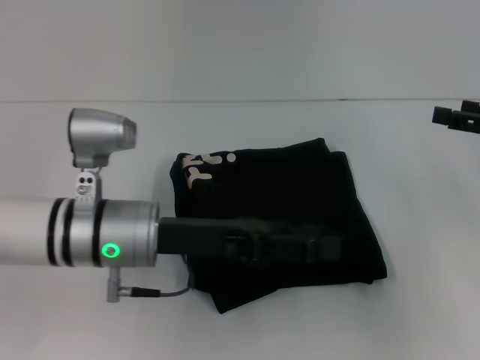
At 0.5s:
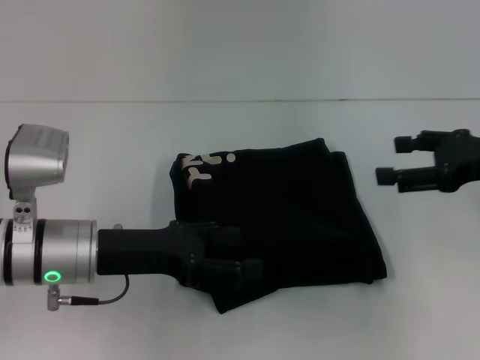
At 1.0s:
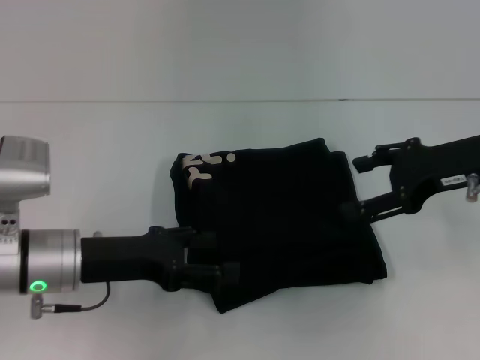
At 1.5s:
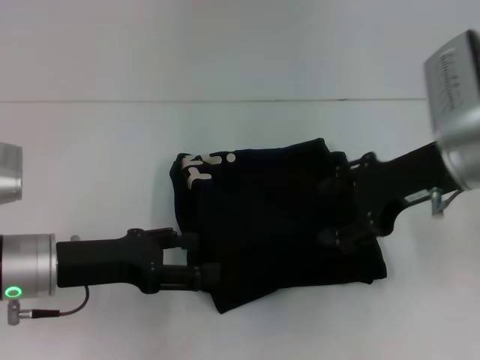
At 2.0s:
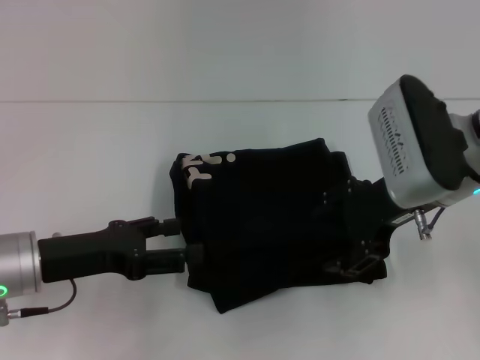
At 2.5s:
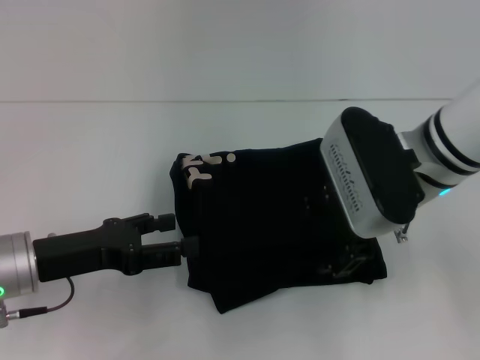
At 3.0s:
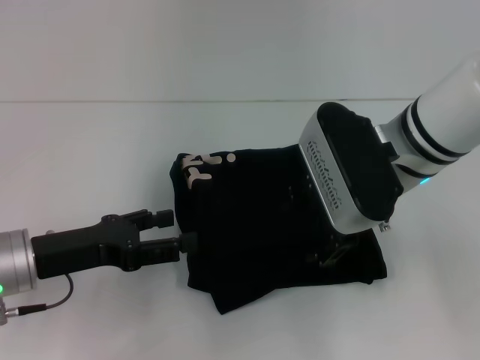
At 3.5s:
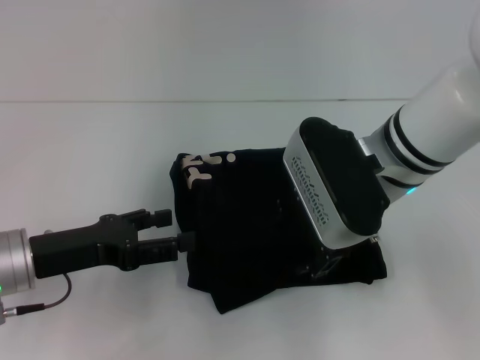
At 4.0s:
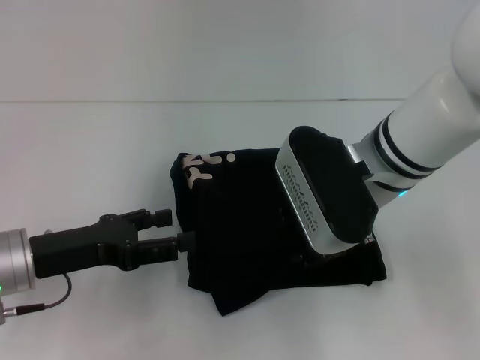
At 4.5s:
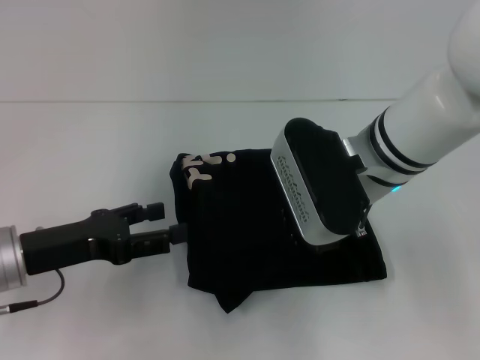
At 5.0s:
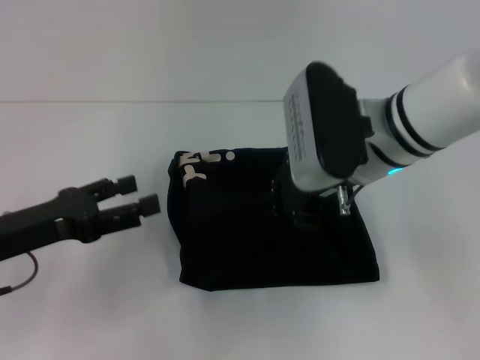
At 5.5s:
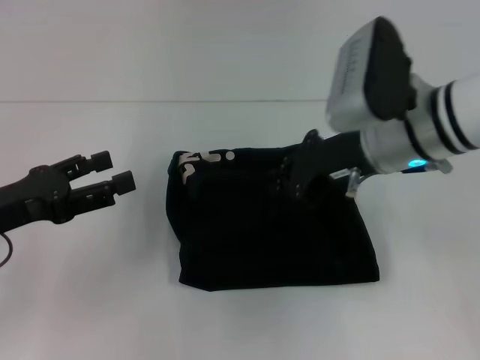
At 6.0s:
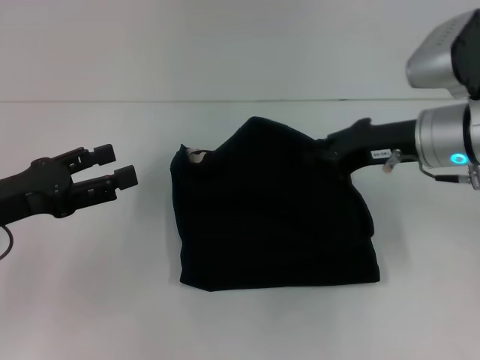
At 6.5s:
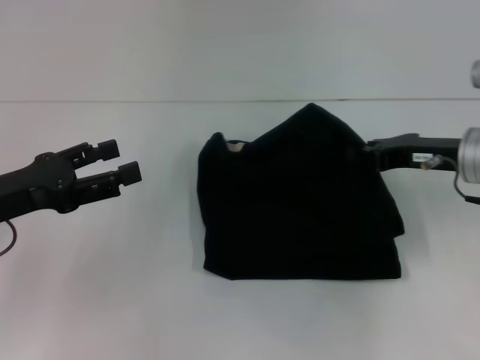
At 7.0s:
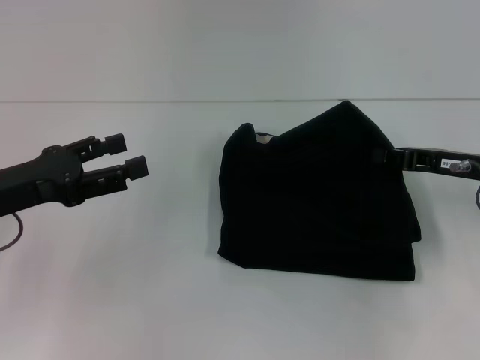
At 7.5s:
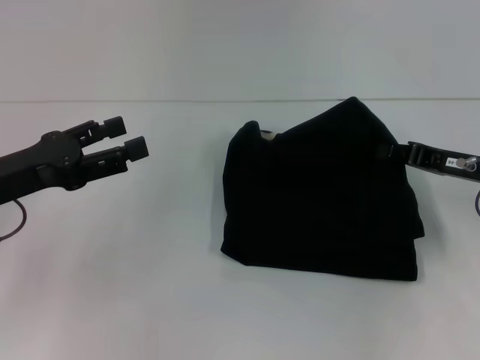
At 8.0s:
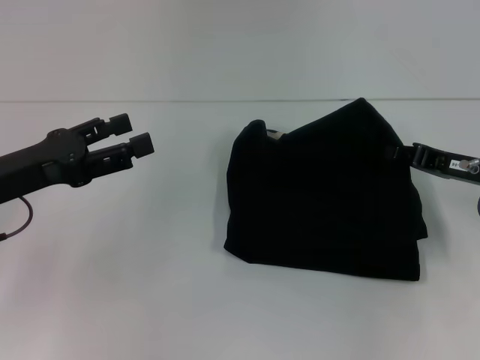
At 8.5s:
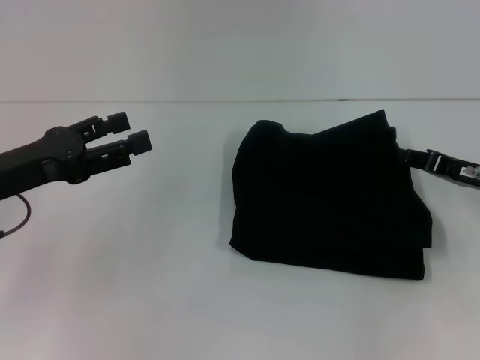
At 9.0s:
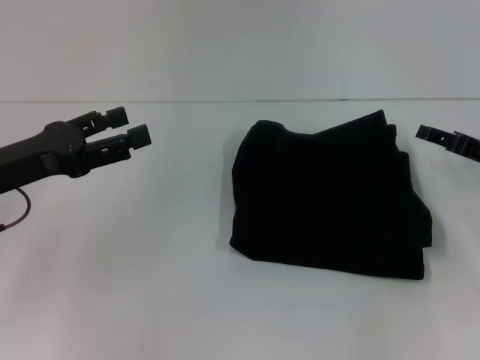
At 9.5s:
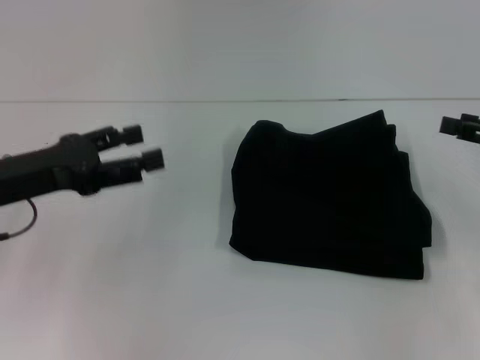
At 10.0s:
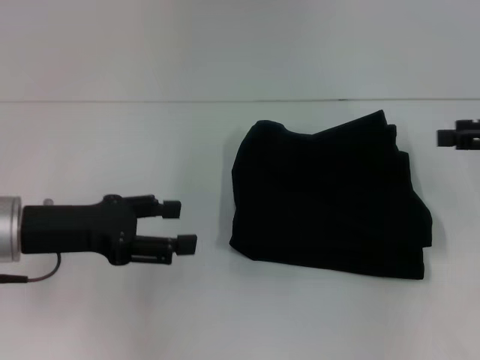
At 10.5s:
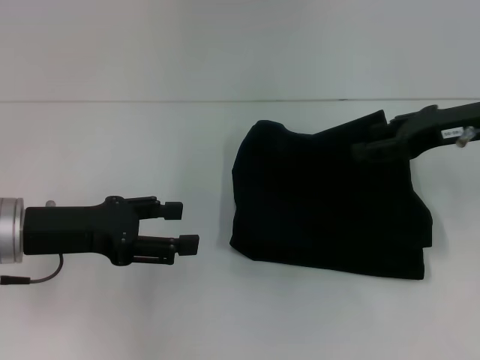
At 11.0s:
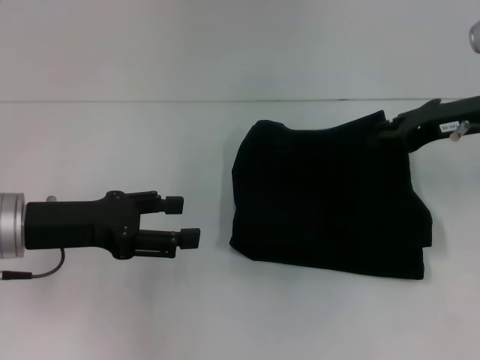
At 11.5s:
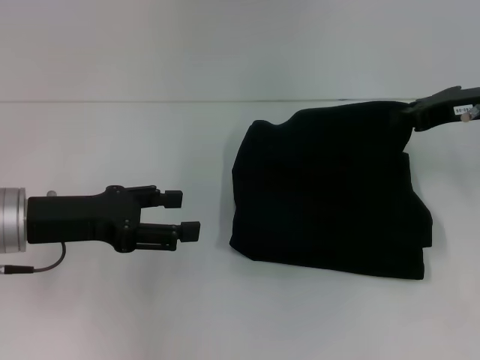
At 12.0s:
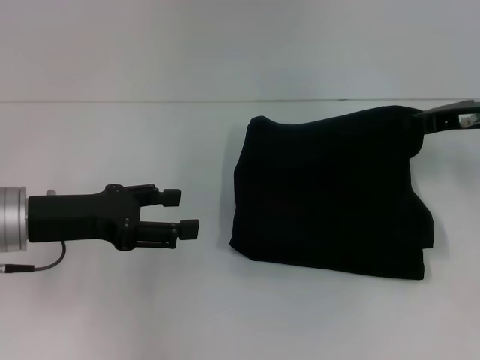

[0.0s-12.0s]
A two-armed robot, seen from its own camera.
0.0s to 2.0s: The right gripper travels to the left by approximately 20 cm, while the left gripper shifts about 10 cm to the left.
2.0s to 4.0s: The right gripper is displaced to the left by about 5 cm.
4.0s to 6.0s: The left gripper ends up approximately 5 cm from where it was. Meanwhile the right gripper moves to the right, roughly 10 cm, and closes its fingers.
6.0s to 8.0s: The right gripper travels to the right and downward by some 10 cm.
8.0s to 10.0s: The right gripper moves upward and to the right, roughly 10 cm, and opens.
10.0s to 12.0s: The right gripper is displaced to the left and forward by approximately 10 cm, and closes.

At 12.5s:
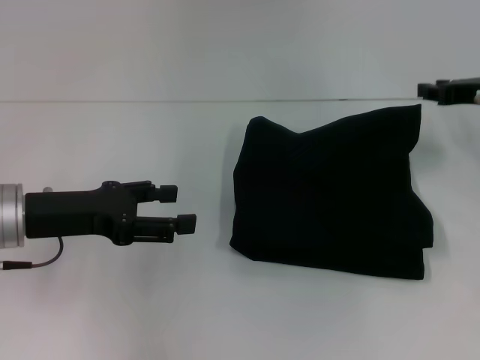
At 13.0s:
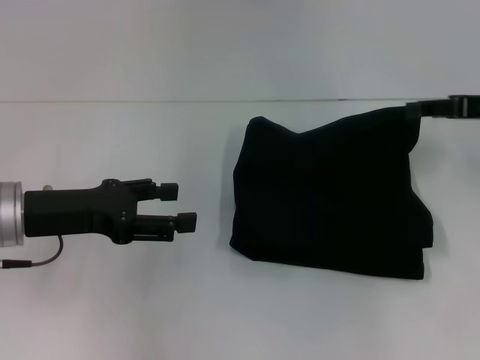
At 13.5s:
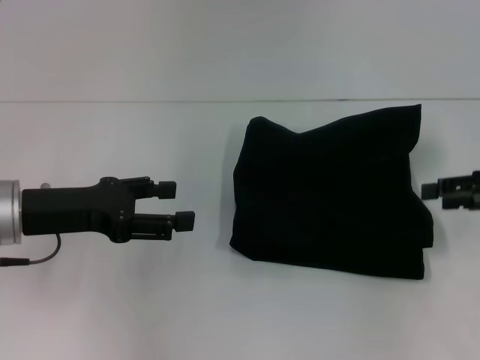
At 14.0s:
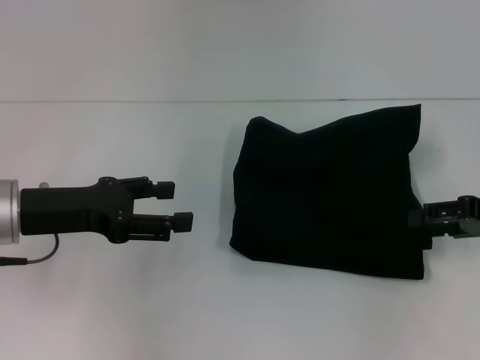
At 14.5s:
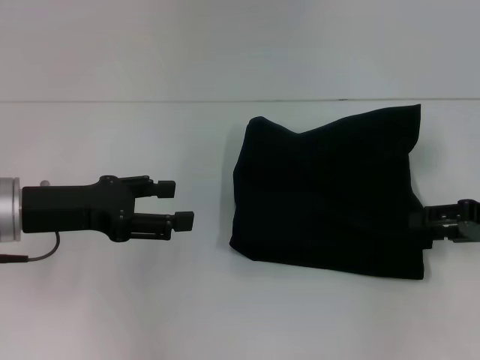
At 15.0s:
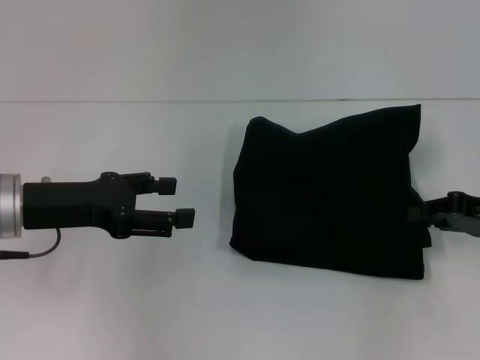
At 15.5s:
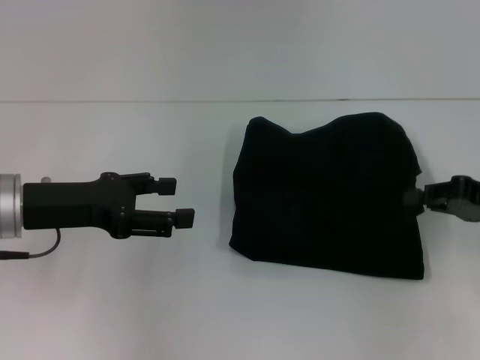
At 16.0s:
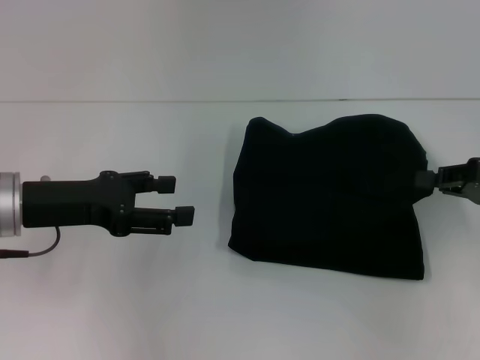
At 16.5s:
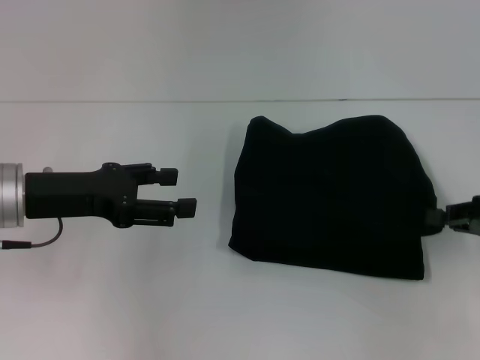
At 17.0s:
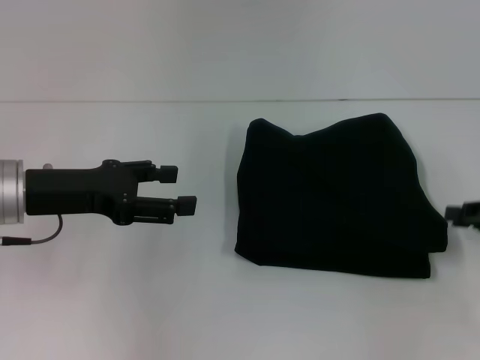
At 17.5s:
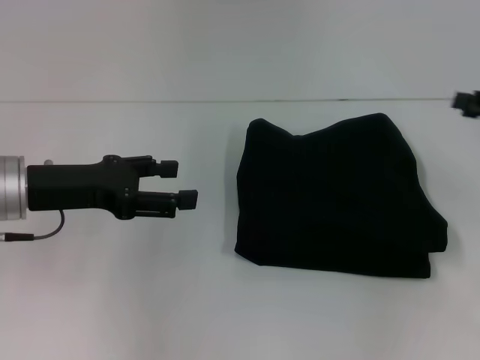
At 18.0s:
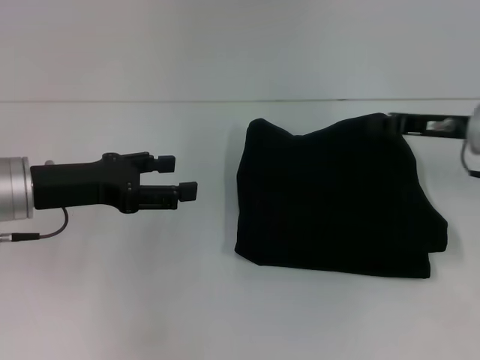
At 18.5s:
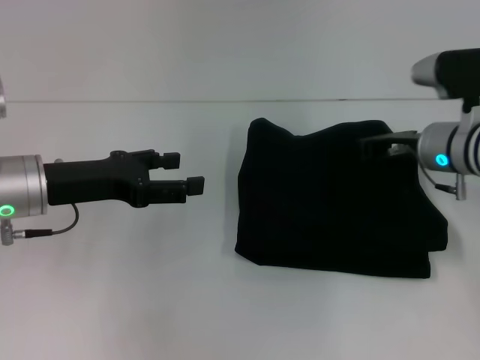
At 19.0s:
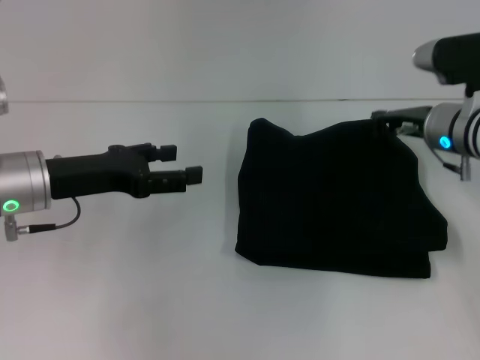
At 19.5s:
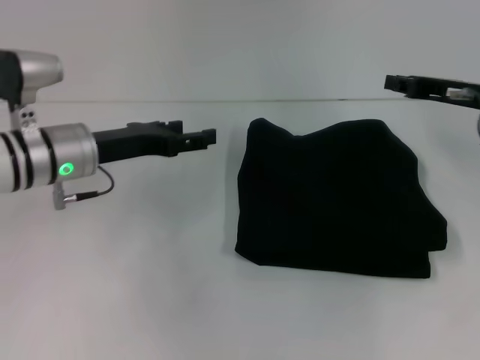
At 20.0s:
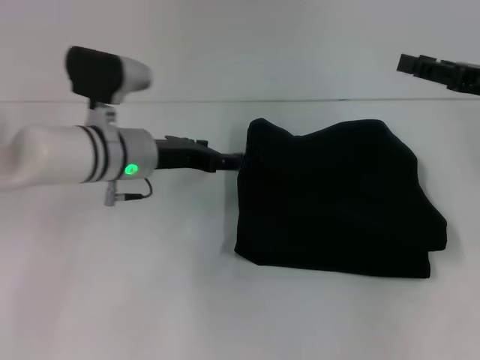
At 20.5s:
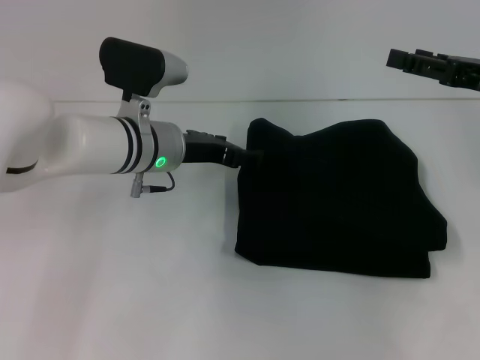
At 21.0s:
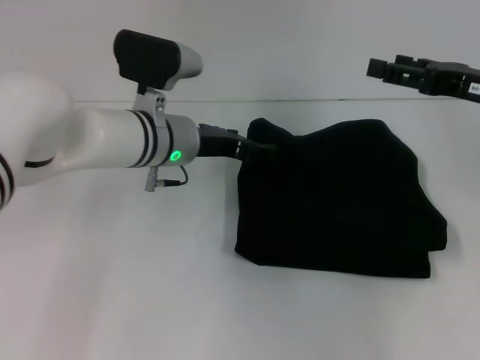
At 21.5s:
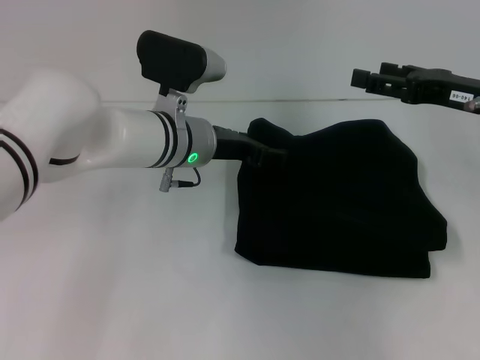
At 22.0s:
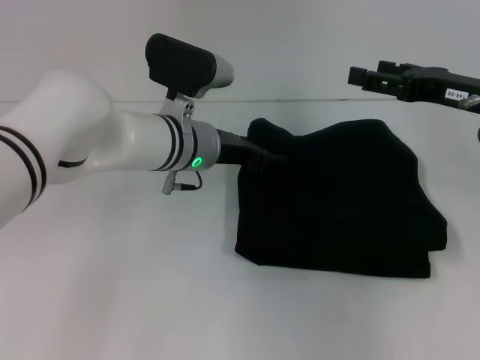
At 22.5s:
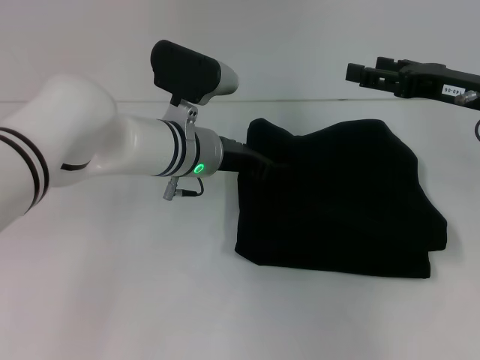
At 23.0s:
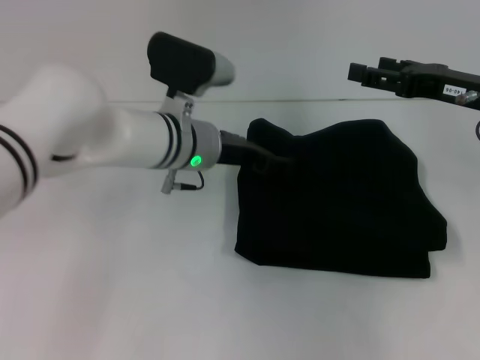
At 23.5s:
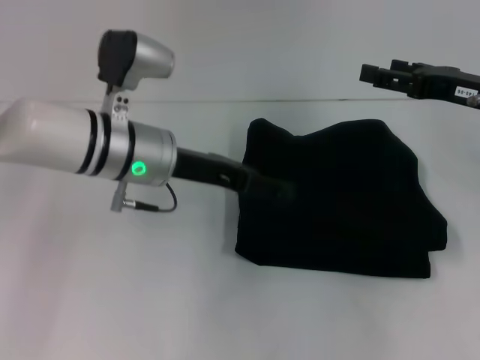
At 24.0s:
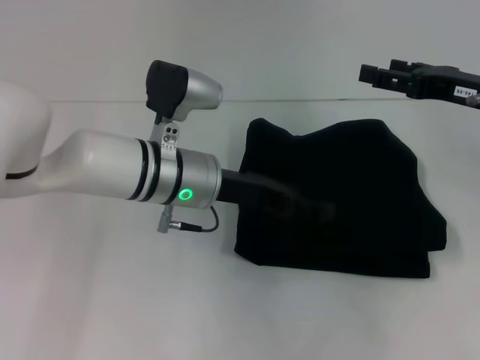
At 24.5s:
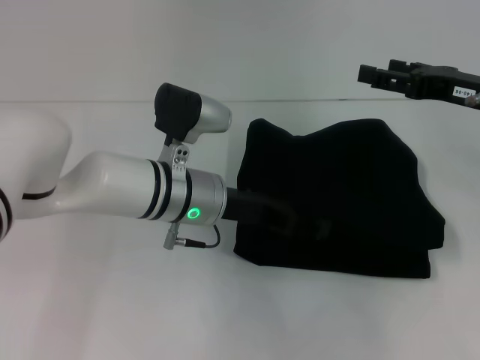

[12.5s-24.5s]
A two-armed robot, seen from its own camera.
12.5s to 14.5s: The right gripper moves backward and downward, about 10 cm, and opens up.
14.5s to 16.5s: The right gripper closes up.
16.5s to 18.5s: The right gripper moves to the left and forward, some 15 cm, and opens, then closes again.
18.5s to 20.5s: The right gripper heads to the right and upward, covering roughly 10 cm, and opens its fingers; the left gripper moves to the right and forward, approximately 15 cm.
20.5s to 22.5s: The grippers move only a little.

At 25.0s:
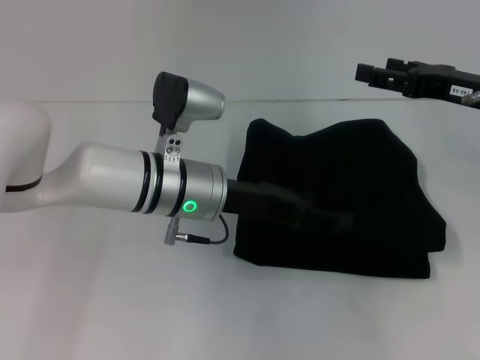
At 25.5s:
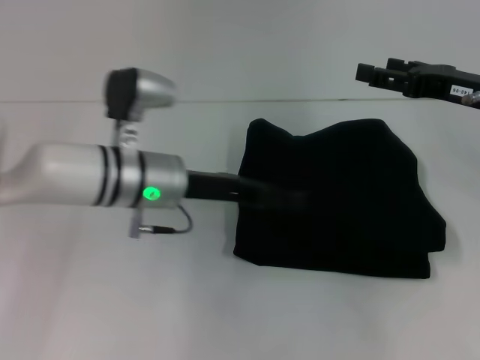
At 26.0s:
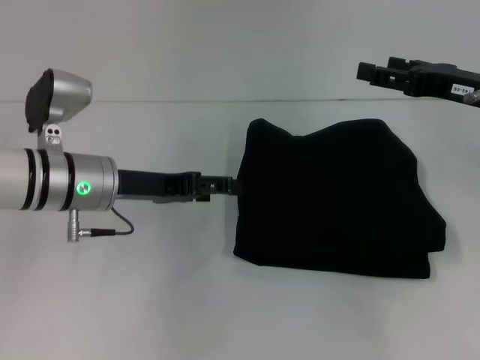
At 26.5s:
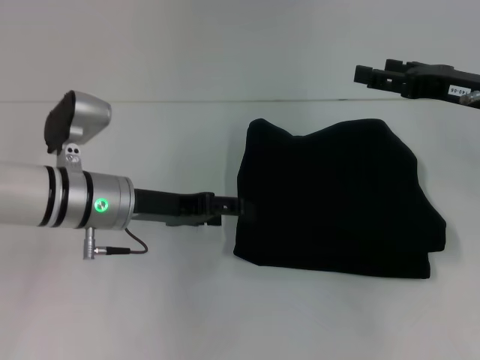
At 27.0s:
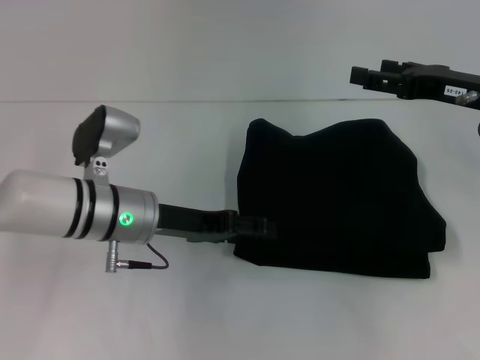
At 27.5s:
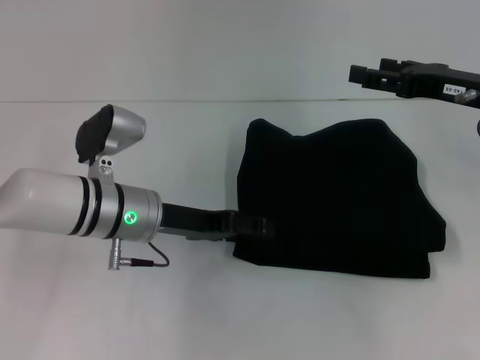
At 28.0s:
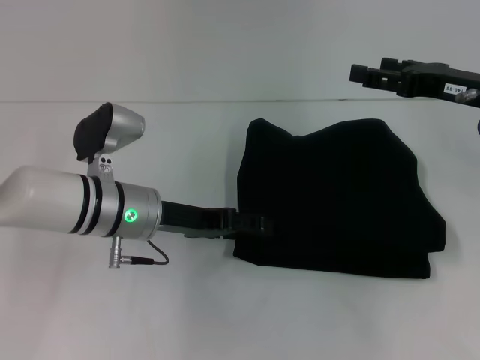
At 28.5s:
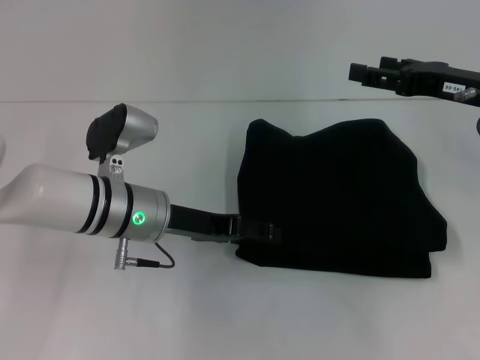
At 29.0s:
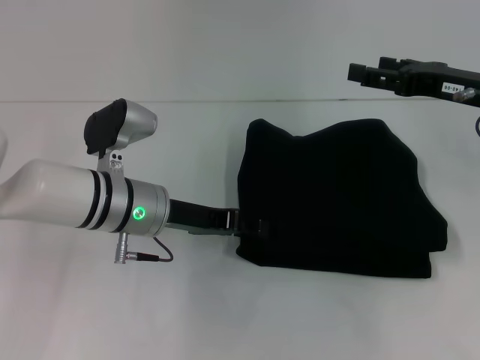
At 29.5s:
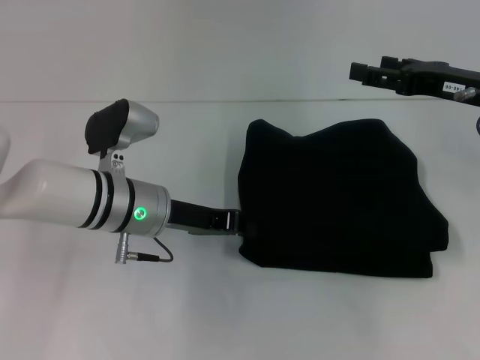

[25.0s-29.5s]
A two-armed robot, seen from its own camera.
25.0s to 27.0s: The left gripper goes approximately 5 cm to the left.
27.0s to 29.5s: The left gripper closes.
